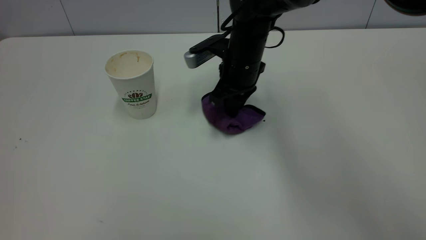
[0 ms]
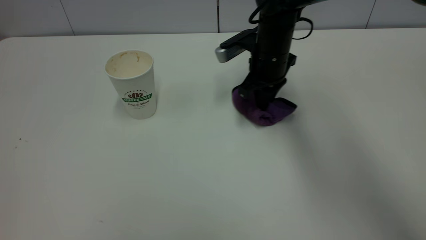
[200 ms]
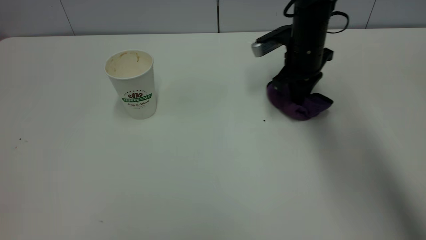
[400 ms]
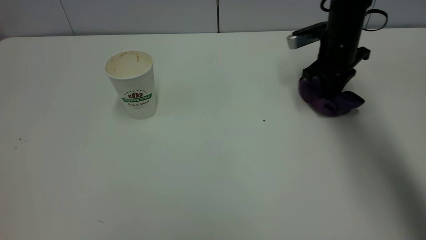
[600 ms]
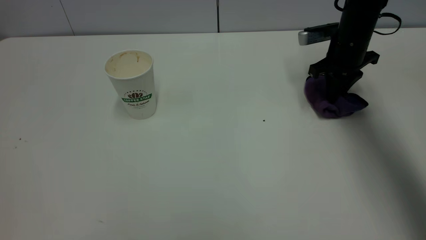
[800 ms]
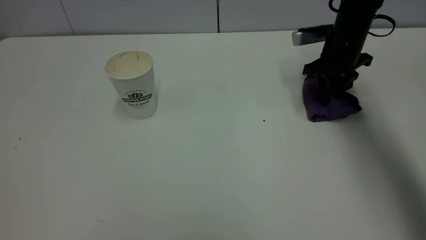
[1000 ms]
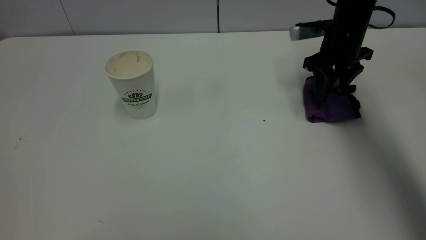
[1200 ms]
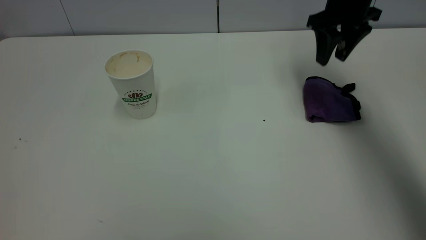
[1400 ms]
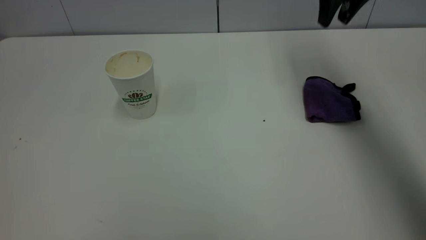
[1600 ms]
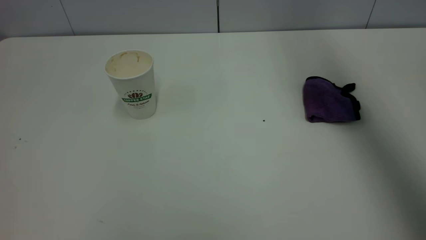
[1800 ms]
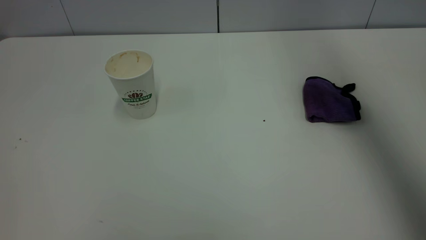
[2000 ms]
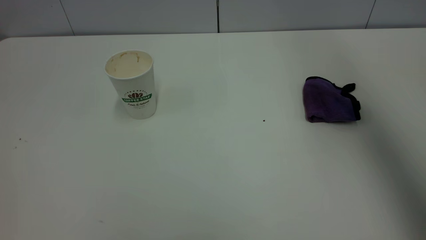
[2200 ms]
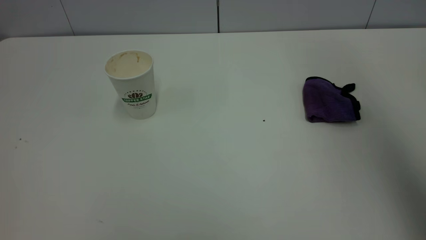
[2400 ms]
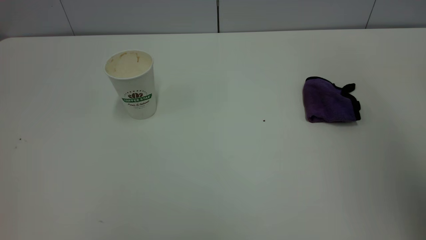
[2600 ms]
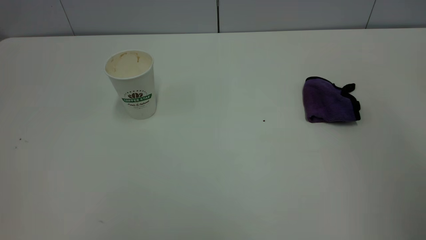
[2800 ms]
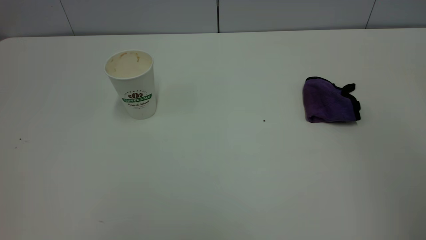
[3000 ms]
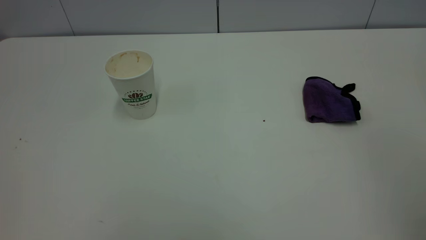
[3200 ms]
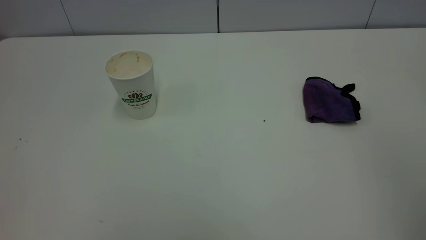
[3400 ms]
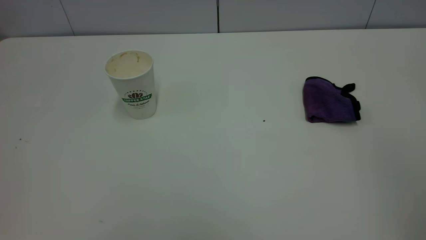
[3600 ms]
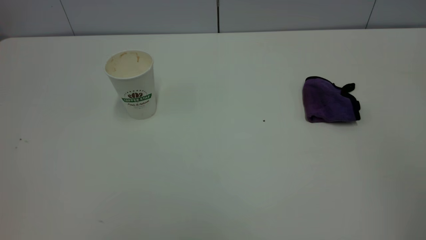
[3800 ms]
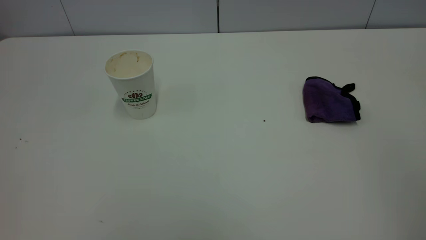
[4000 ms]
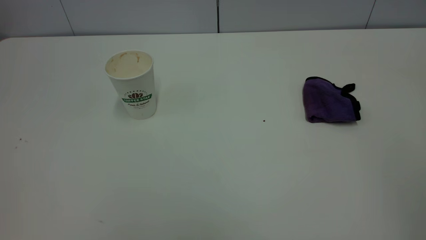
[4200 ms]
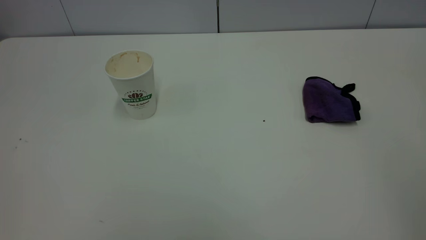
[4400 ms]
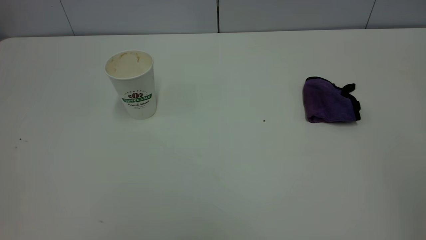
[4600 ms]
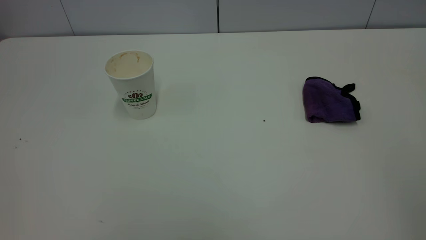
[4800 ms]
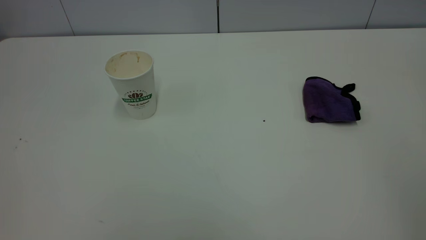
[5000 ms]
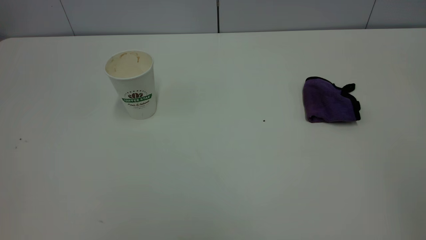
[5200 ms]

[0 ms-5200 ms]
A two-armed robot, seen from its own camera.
Task of the whole recording: the left gripper pick up the fallen cup and place it upright, the right gripper grasp the purple rag and wipe the tea stain on the table, the right gripper put the purple rag back in its original position.
0 ms to 1800 ms: The right gripper shifts roughly 30 cm upward and to the right, and opens.
1800 ms to 3400 ms: The right gripper goes some 40 cm backward.

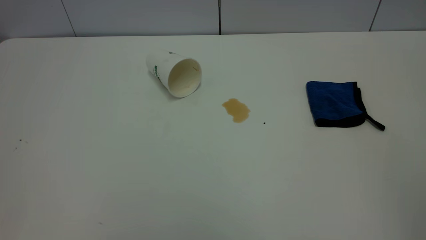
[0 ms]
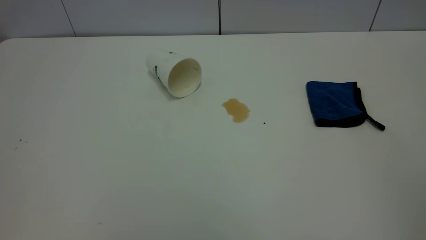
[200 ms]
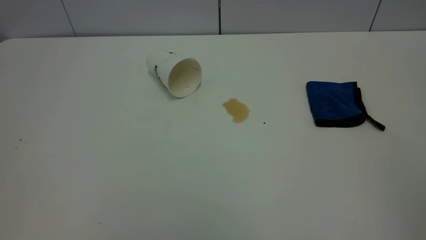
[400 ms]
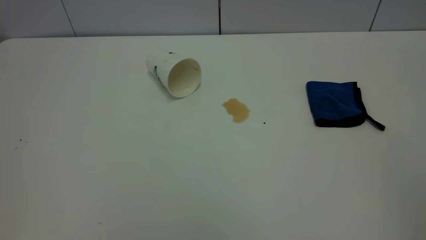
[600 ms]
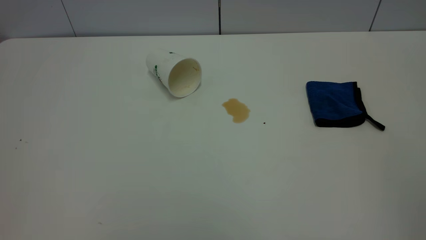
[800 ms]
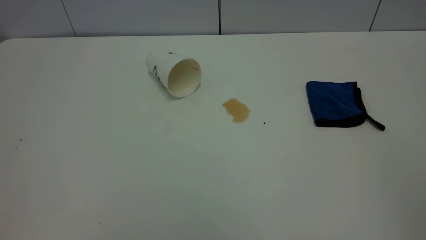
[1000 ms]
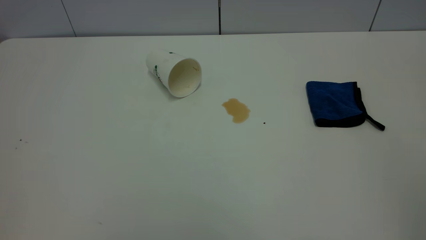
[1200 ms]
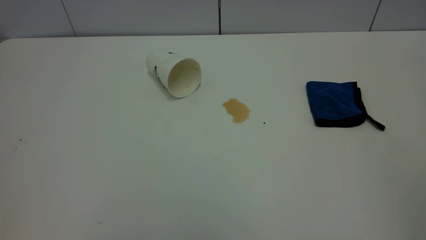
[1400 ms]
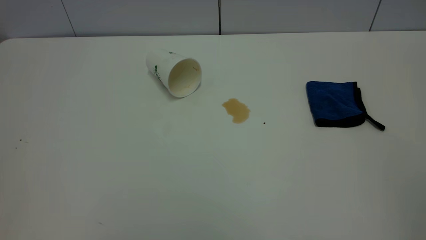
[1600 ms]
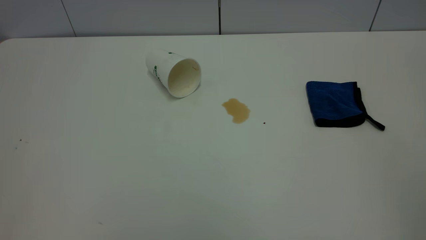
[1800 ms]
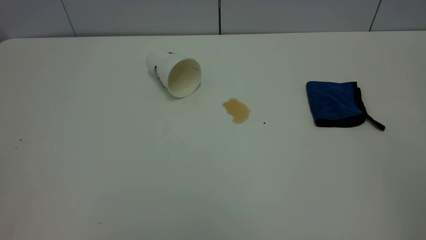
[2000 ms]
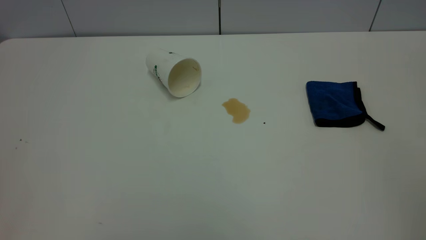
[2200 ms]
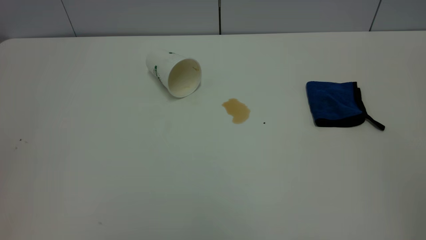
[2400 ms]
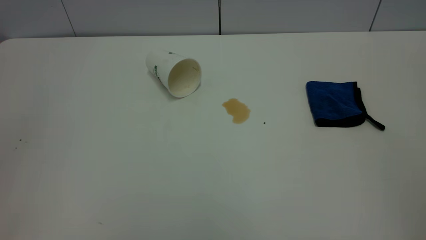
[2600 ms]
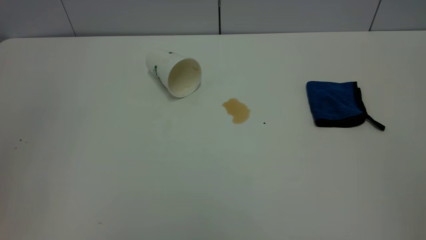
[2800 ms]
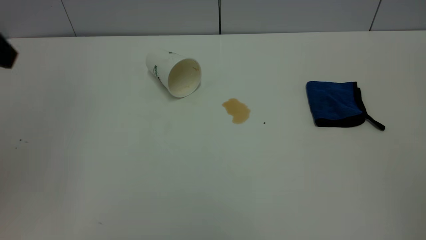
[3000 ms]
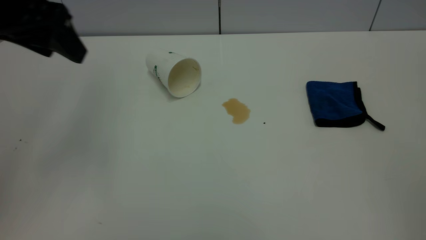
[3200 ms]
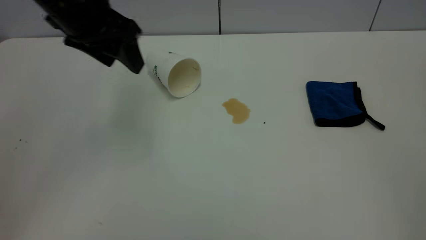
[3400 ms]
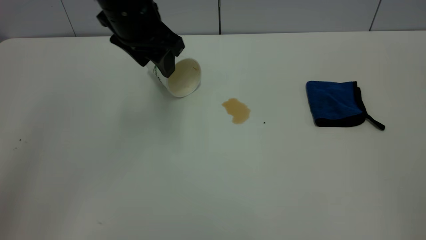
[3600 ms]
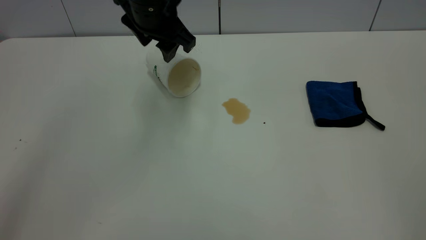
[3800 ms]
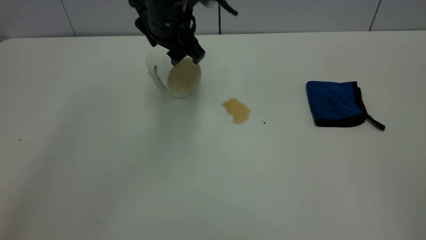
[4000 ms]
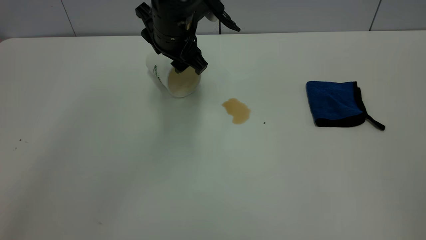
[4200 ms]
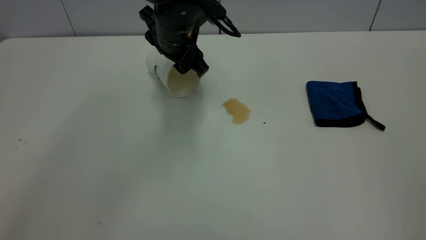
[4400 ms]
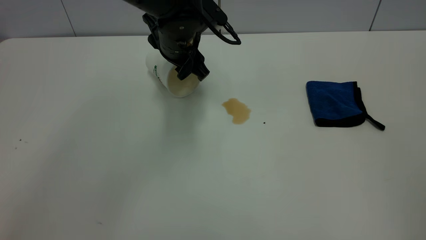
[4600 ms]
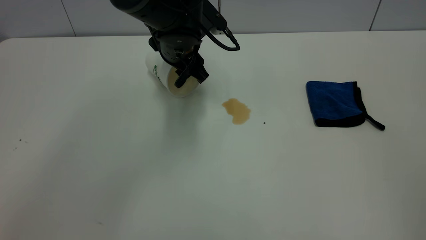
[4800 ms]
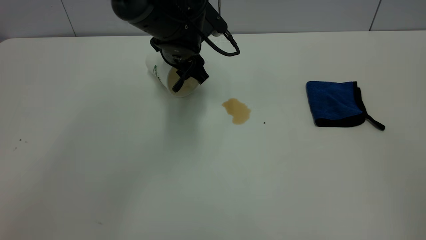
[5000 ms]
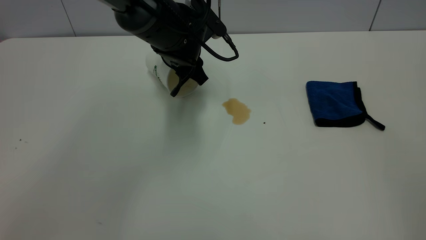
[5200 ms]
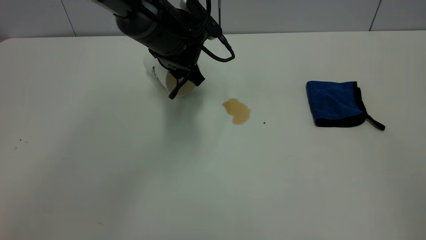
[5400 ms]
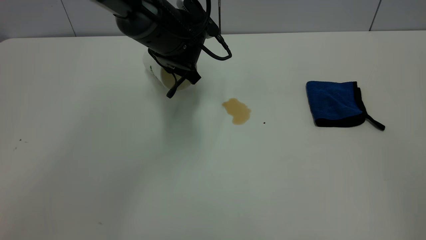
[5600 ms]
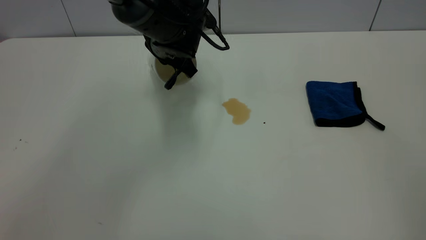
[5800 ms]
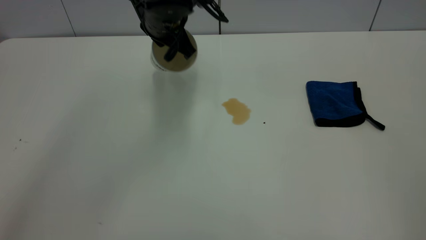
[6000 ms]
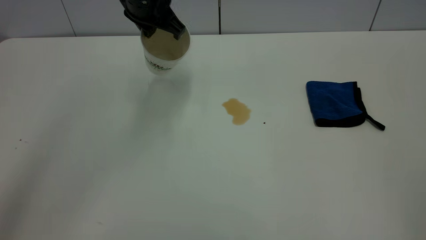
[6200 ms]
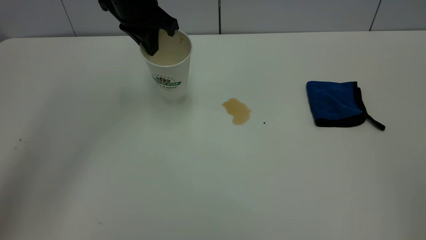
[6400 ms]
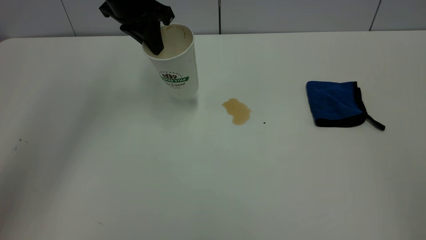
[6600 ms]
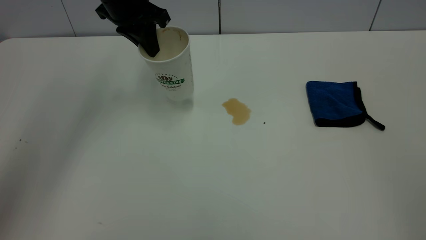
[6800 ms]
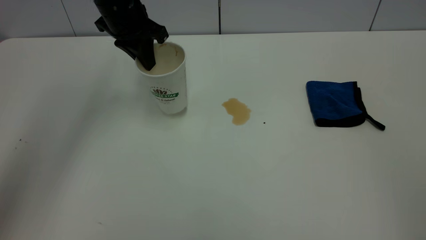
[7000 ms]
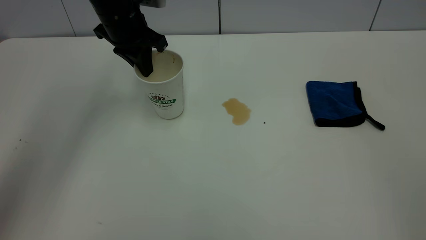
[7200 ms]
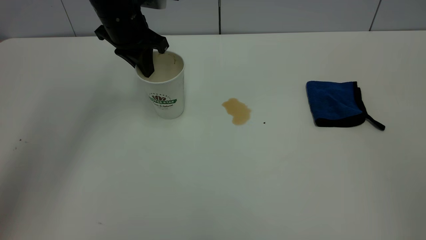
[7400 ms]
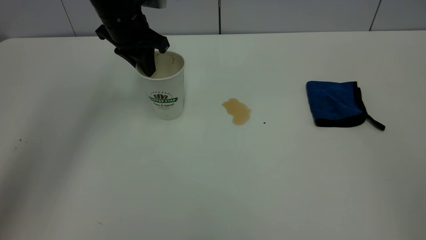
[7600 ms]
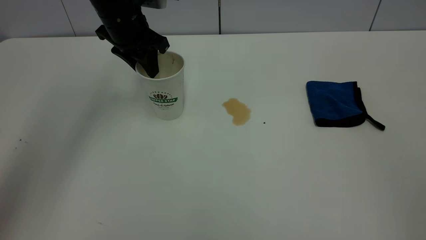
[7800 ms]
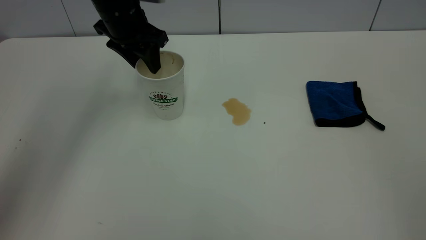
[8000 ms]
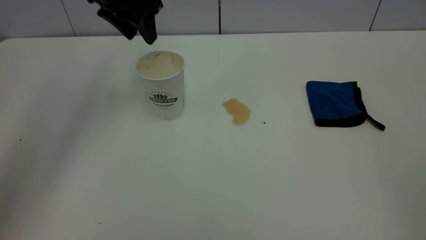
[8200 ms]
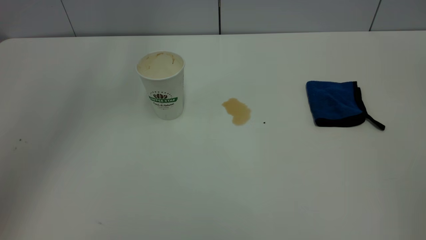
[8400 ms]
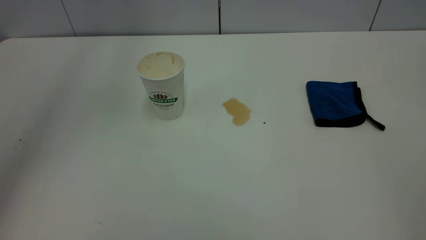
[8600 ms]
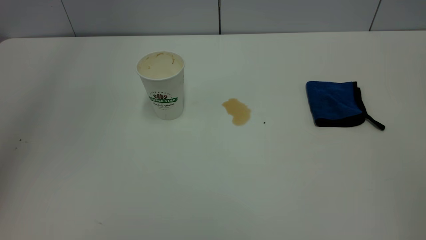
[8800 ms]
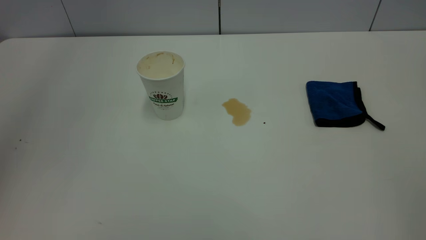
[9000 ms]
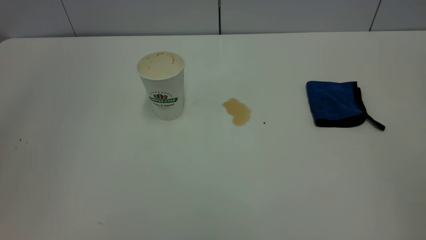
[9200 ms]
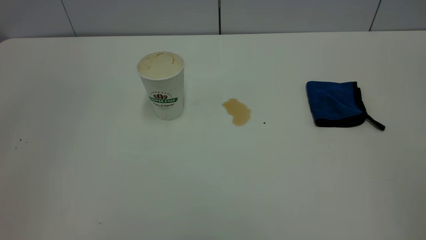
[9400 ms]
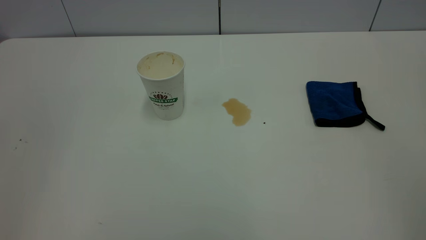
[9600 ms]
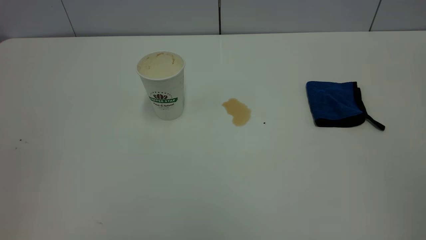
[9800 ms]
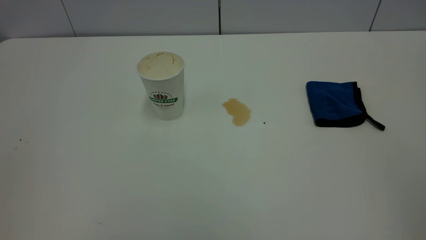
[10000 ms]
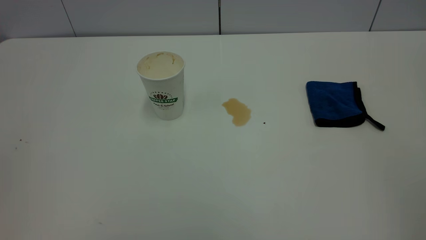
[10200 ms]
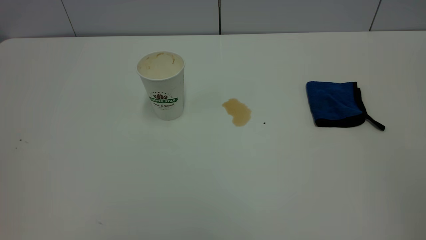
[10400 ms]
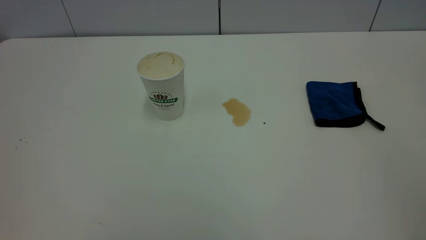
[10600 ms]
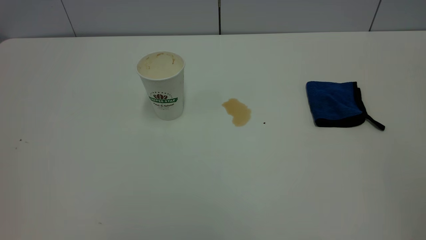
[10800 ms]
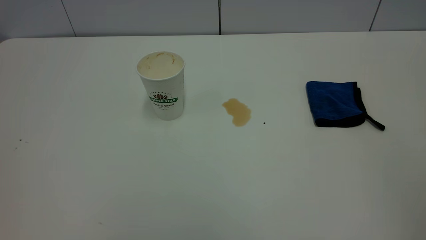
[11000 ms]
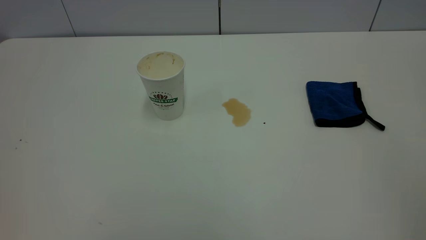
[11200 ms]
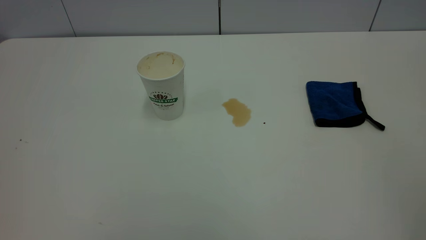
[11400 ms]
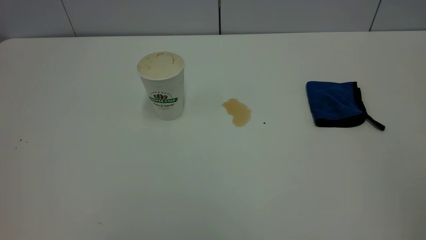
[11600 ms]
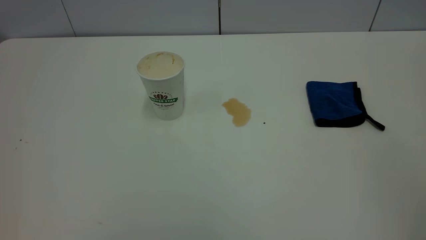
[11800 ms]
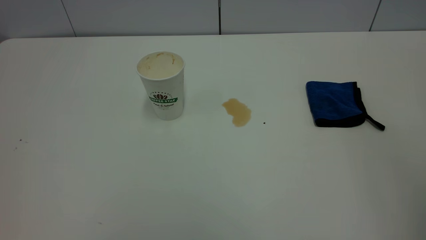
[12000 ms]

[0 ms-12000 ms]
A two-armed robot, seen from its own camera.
Task of the whole recording: the left gripper pick up the fallen cup and place it upright, the right gripper grasp the blue rag and wipe the tea stain on the table, the right gripper put the blue rag back in its original position.
Step, 0 ms to 8000 ms: Stand the paper cup upright.
0 ms to 1600 ms: Both grippers stay about where they are.
3000 ms to 4400 ms: The left gripper moves to the right, forward and downward, about 30 cm.
4400 ms to 6000 ms: The left gripper closes its fingers.
6000 ms to 7600 ms: The left gripper goes about 10 cm to the left.
7600 ms to 9000 ms: The left gripper goes roughly 35 cm upward and backward, and opens its fingers.
